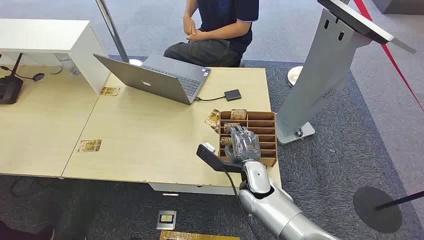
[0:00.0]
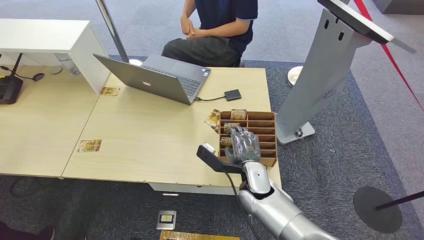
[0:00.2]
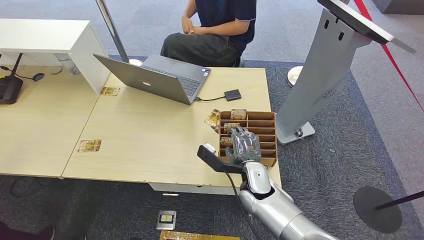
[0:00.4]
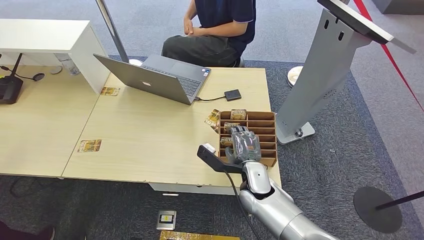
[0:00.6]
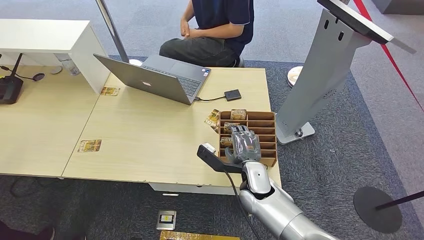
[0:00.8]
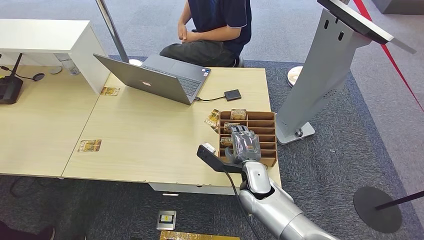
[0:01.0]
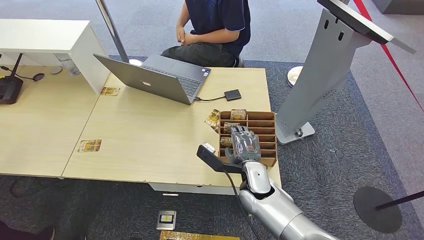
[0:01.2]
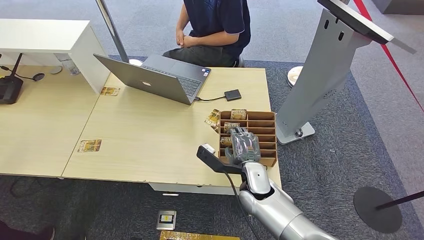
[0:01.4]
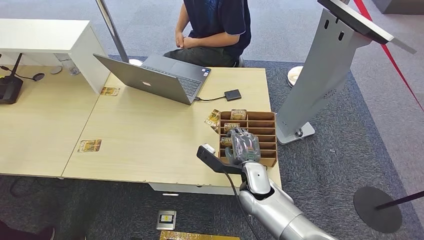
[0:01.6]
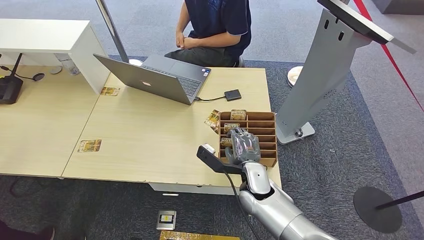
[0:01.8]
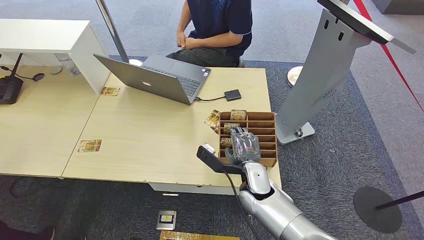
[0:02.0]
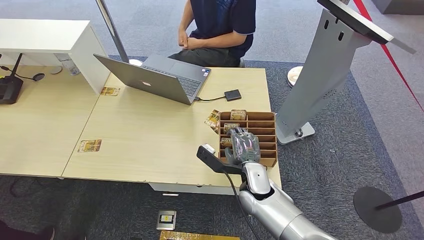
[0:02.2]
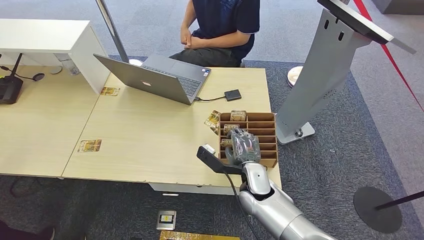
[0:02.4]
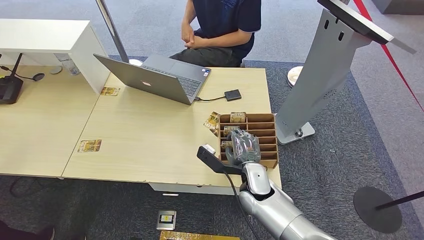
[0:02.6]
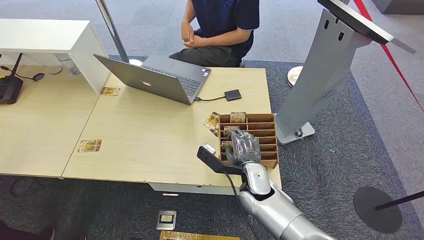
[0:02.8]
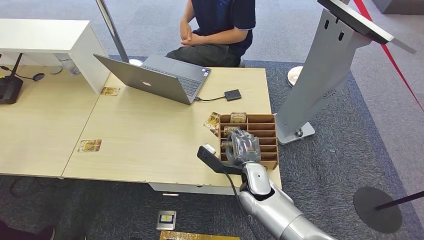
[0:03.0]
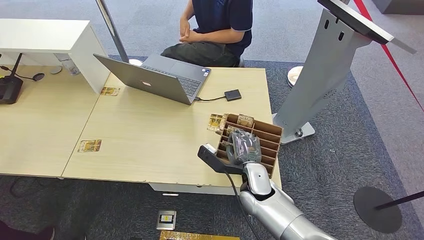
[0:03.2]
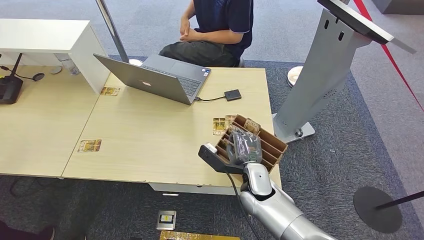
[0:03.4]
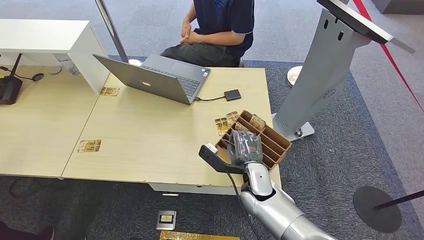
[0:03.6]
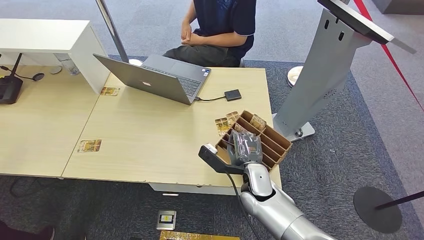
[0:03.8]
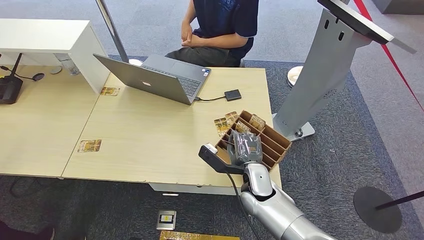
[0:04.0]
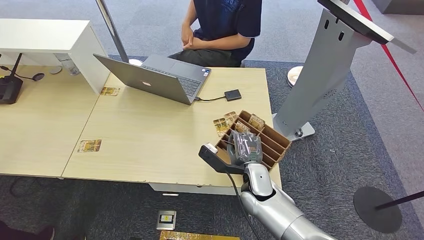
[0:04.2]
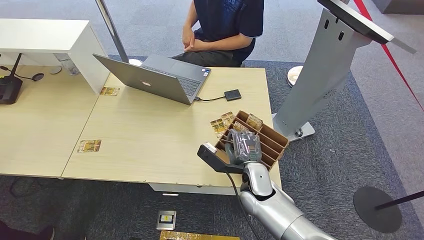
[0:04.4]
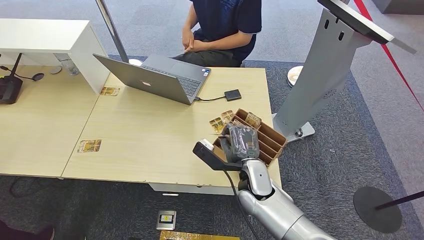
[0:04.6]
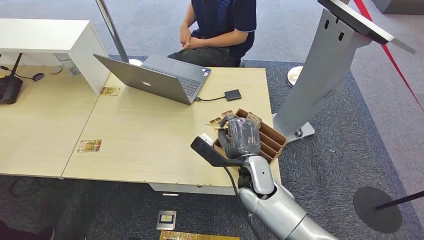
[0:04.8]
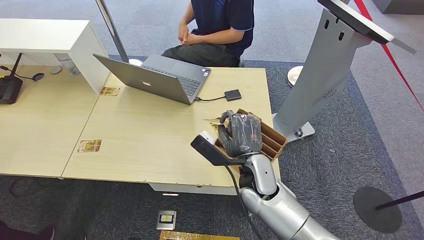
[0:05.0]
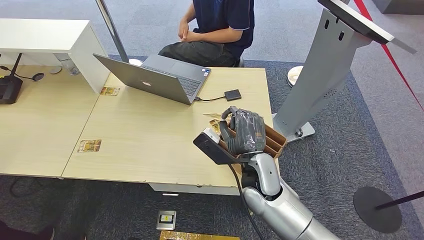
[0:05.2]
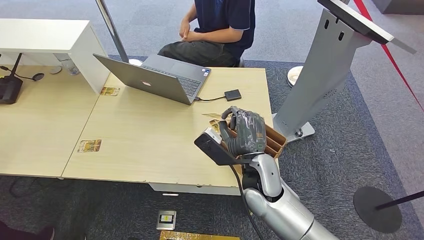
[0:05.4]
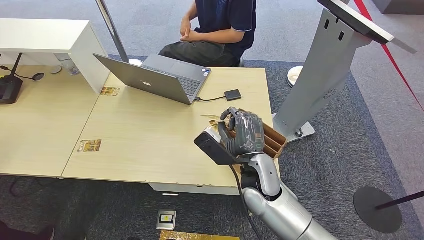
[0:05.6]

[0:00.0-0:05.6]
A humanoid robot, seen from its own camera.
Step, 0:00.0 to 0:05.6: Pick up the room card from the card holder.
0:01.4 to 0:04.2: Both hands stay about where they are.
0:04.2 to 0:05.6: The right hand is displaced upward by roughly 10 cm.

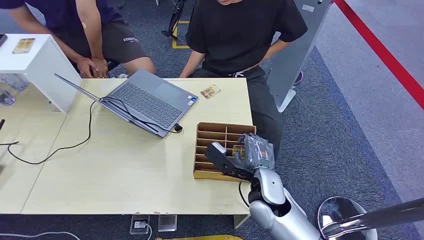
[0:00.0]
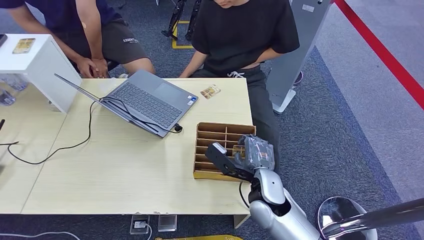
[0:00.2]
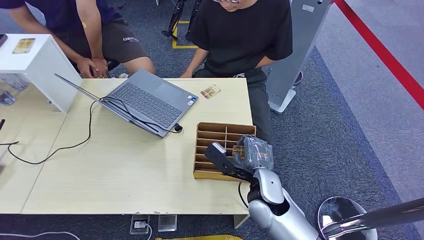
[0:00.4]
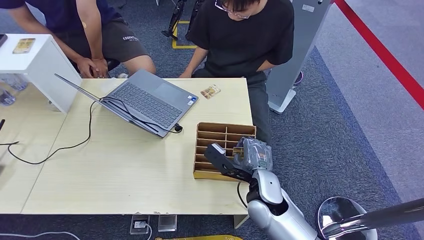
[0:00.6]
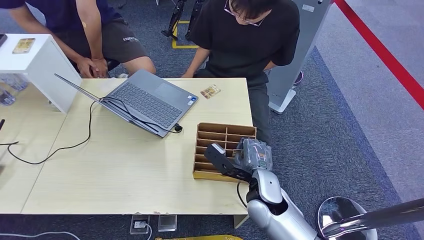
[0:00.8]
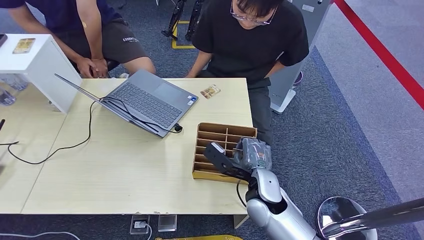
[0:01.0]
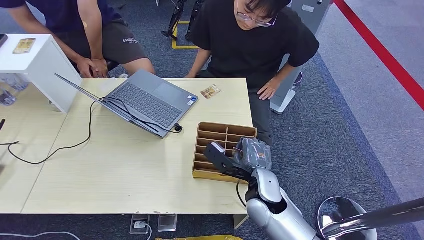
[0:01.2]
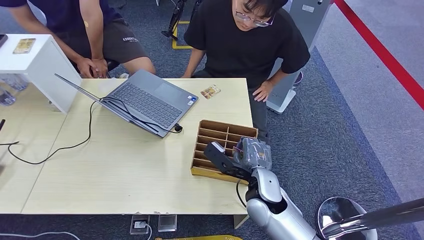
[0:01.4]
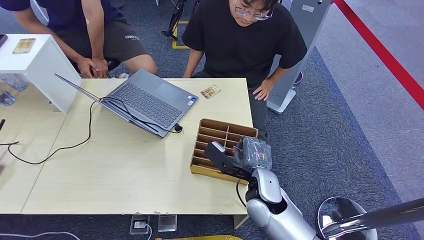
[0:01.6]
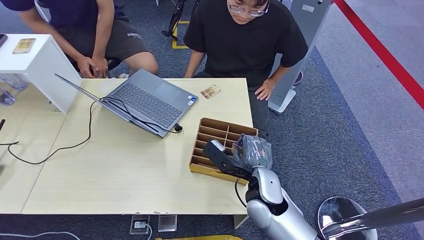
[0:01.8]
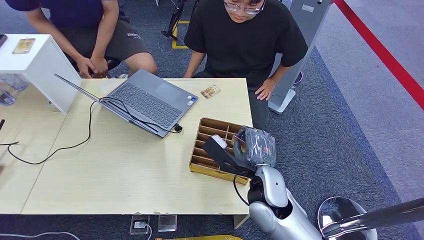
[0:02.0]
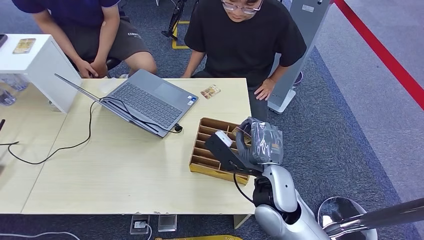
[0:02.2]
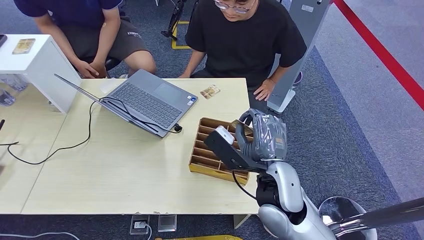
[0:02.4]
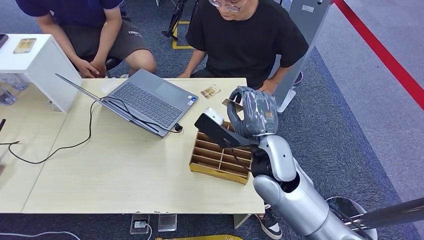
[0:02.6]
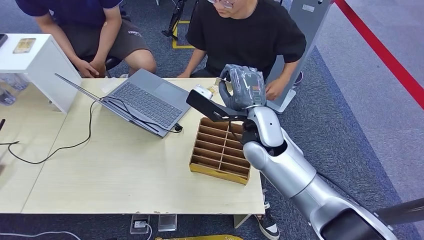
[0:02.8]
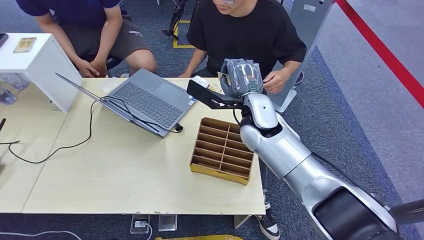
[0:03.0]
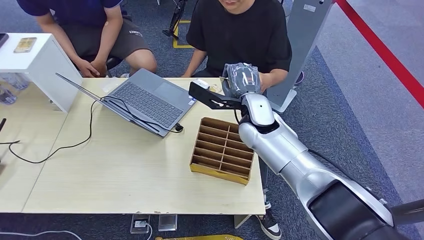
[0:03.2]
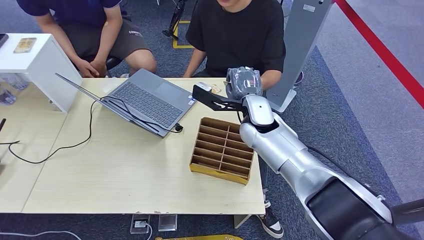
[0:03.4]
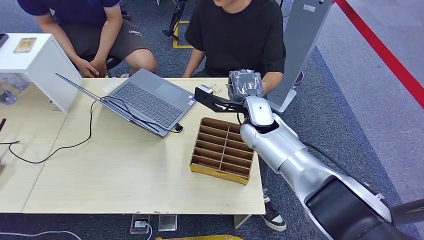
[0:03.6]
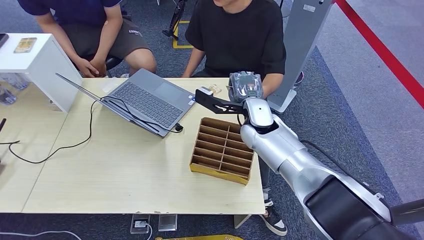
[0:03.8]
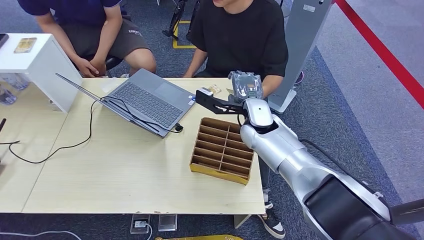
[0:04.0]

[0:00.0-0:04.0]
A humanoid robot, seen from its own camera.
Step, 0:00.0 to 0:02.0: Pick up the room card from the card holder.
Step, 0:02.4 to 0:04.0: Hand the room card to the target.
0:01.4 to 0:02.6: The right hand shifts approximately 10 cm upward.
0:02.6 to 0:04.0: The right hand goes roughly 15 cm forward.

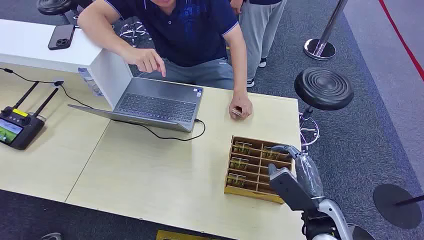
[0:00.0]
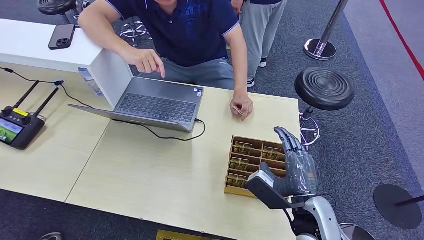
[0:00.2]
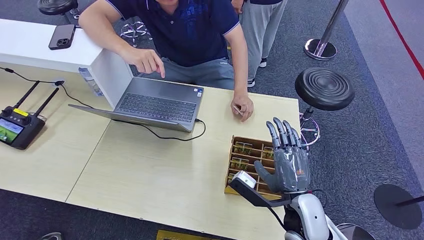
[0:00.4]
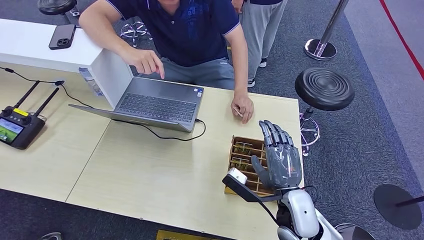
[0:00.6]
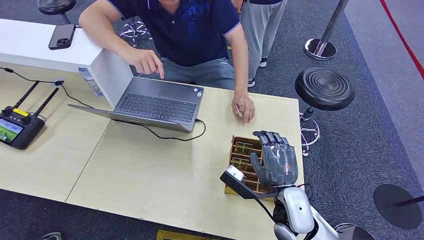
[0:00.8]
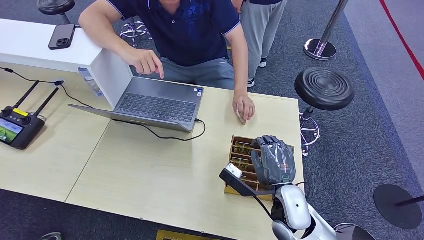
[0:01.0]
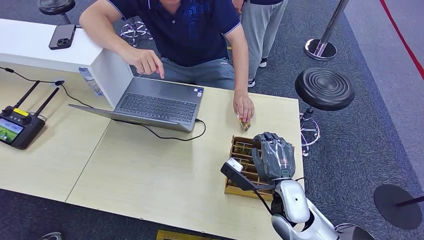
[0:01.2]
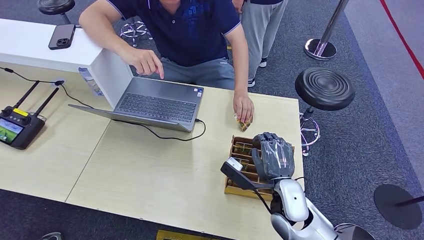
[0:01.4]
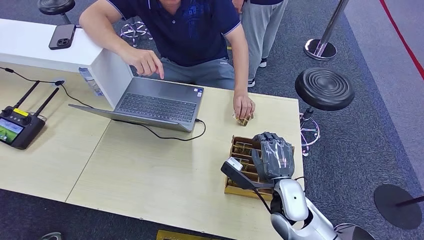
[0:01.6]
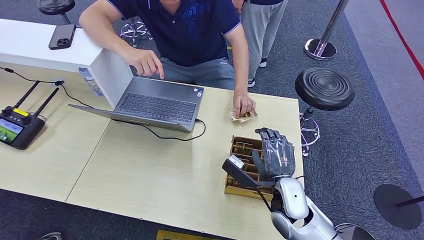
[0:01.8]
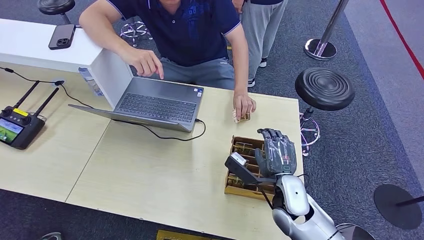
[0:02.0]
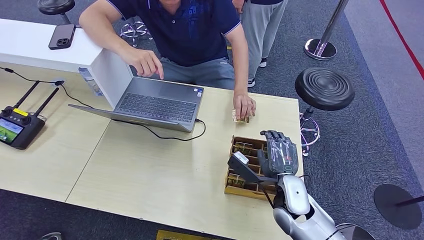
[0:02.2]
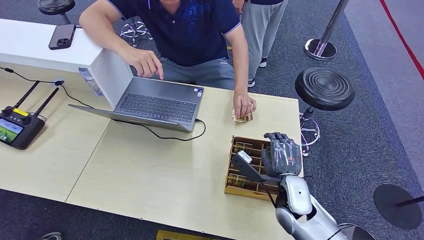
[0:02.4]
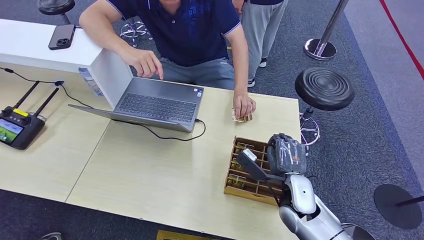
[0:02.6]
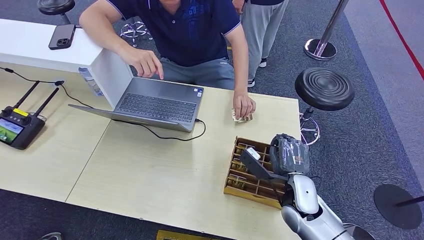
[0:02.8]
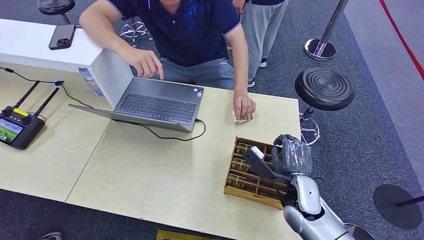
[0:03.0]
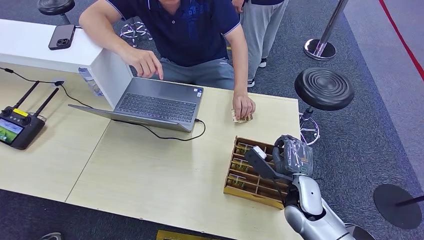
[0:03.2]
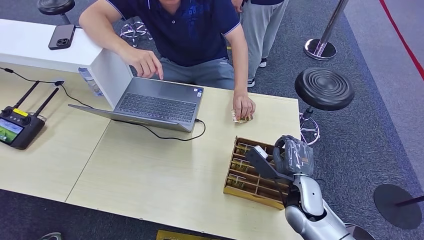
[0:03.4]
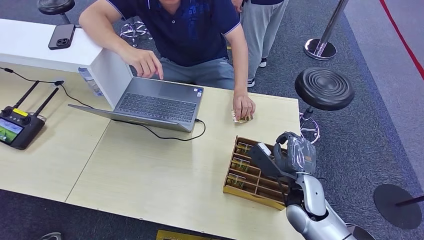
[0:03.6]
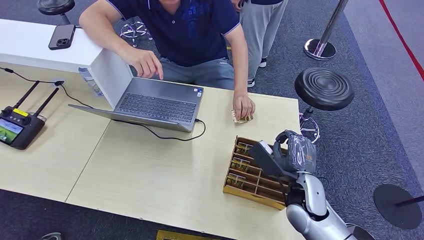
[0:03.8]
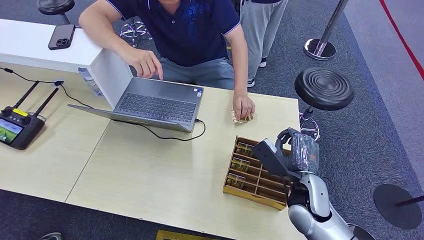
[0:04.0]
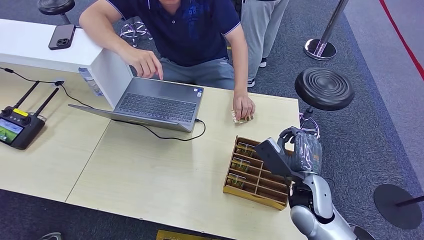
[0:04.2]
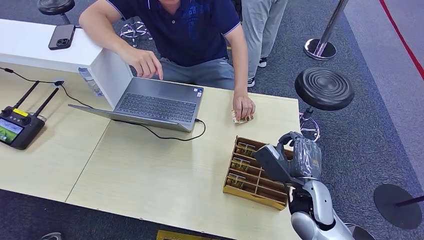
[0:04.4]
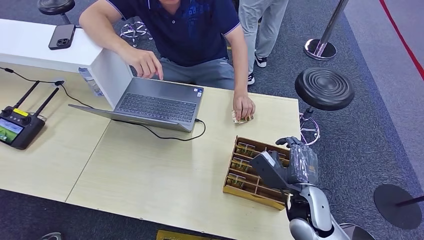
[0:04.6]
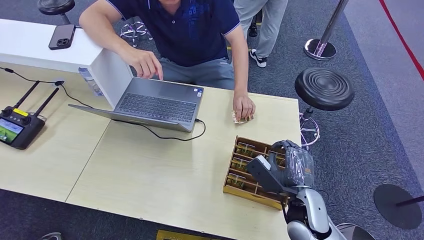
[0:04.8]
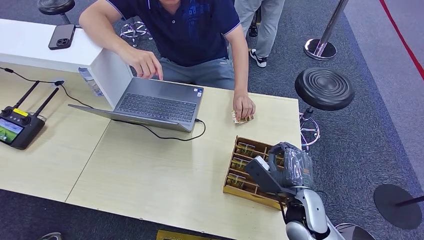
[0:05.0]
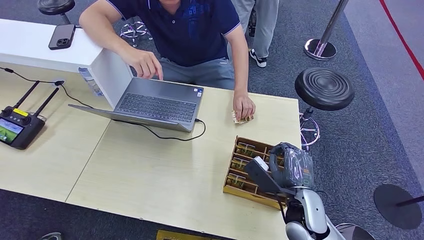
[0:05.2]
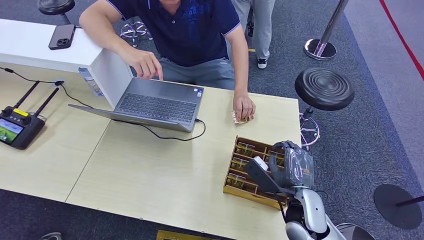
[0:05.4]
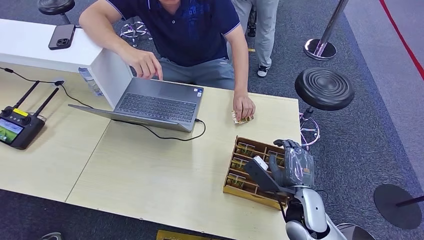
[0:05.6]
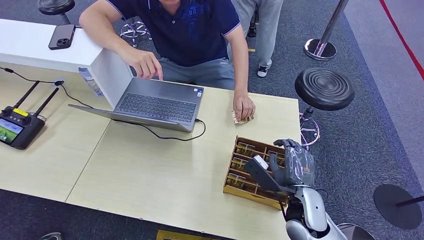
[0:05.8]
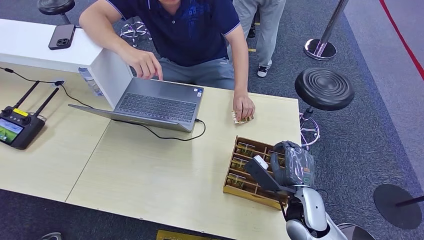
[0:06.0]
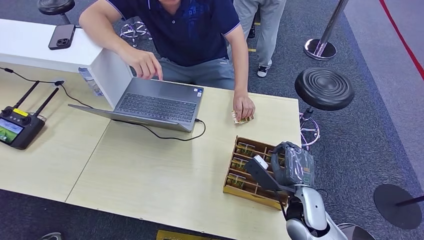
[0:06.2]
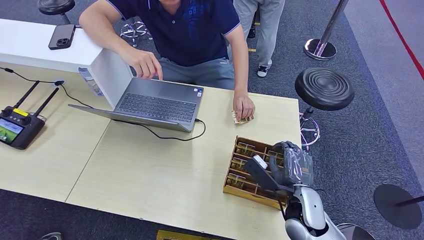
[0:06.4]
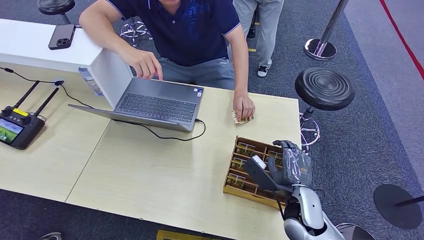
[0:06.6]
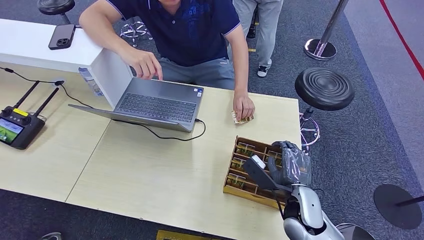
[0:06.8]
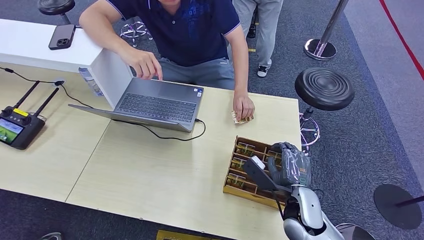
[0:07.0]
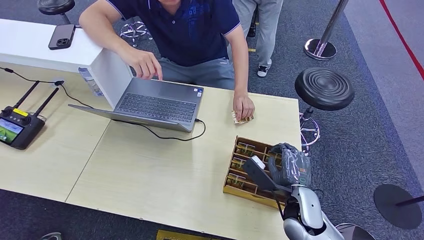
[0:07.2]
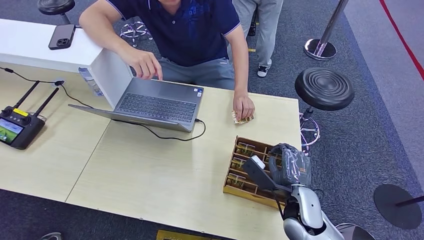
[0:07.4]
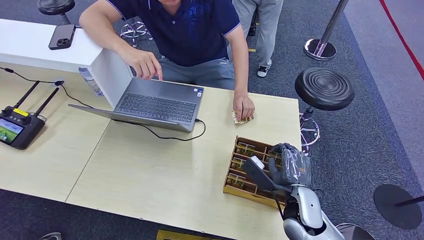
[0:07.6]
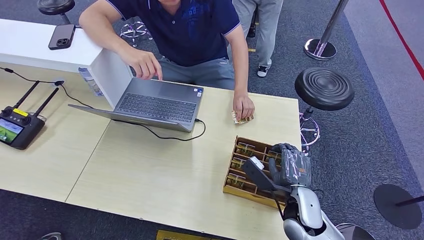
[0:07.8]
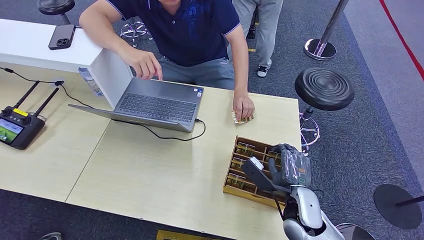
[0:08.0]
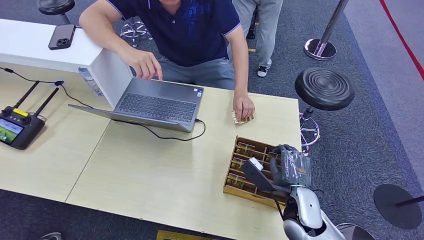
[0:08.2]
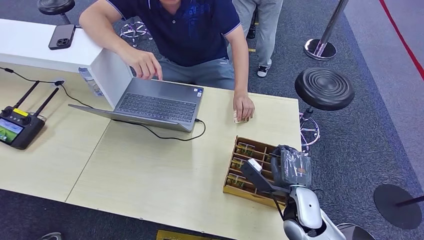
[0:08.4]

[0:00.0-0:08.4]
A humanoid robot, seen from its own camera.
0:01.4 to 0:02.8: The hands move only a little.
0:02.8 to 0:05.6: There are only small adjustments of the hands.
0:05.6 to 0:07.0: Both hands stay put.
0:07.0 to 0:08.4: The hands make only small movements.
